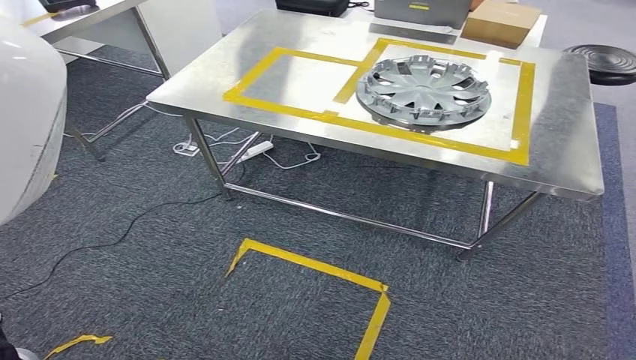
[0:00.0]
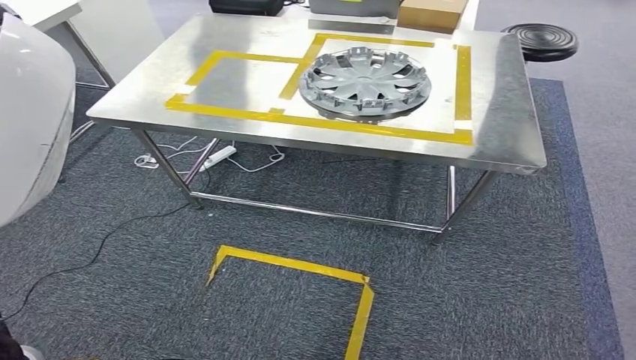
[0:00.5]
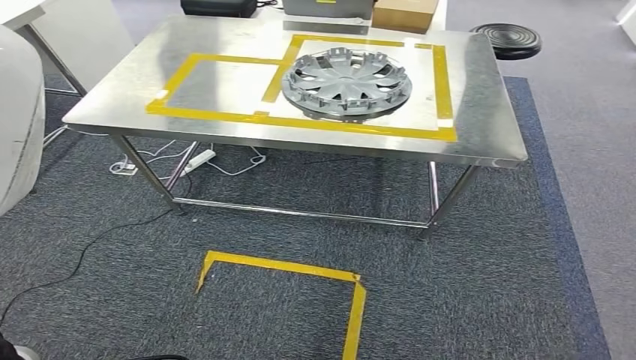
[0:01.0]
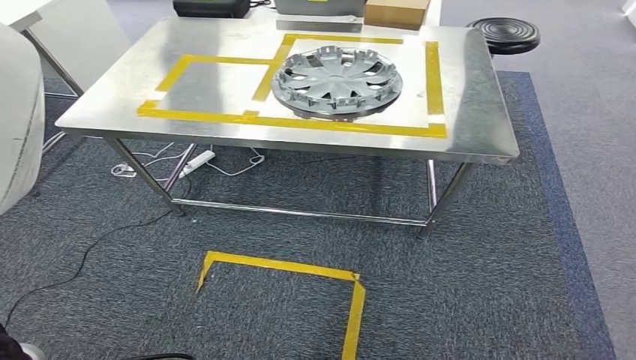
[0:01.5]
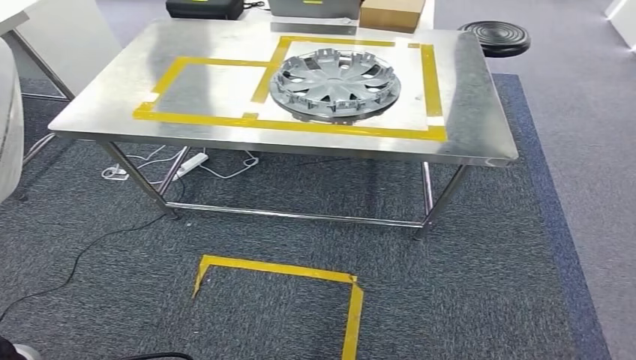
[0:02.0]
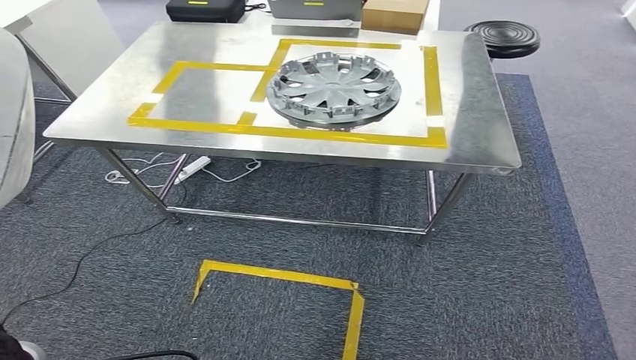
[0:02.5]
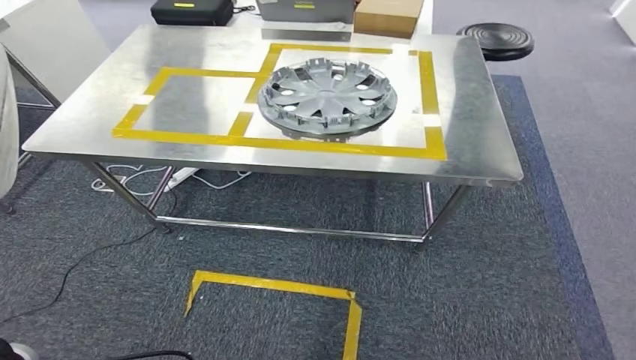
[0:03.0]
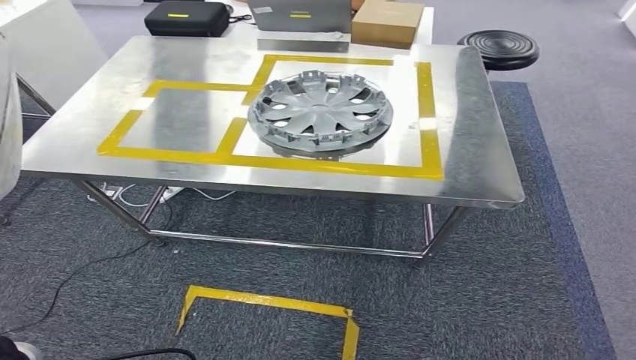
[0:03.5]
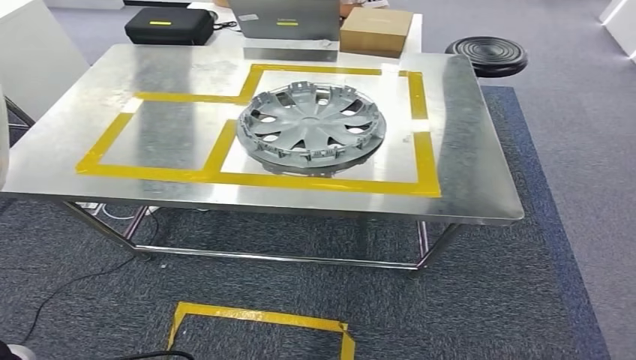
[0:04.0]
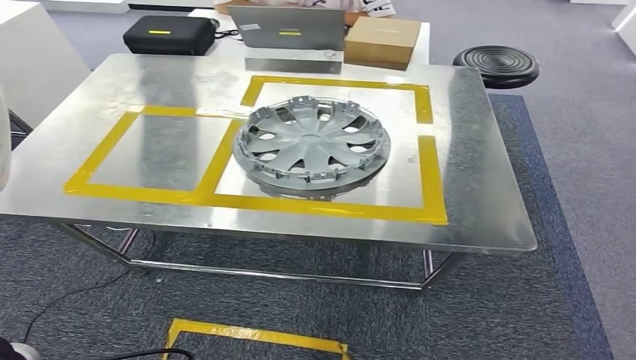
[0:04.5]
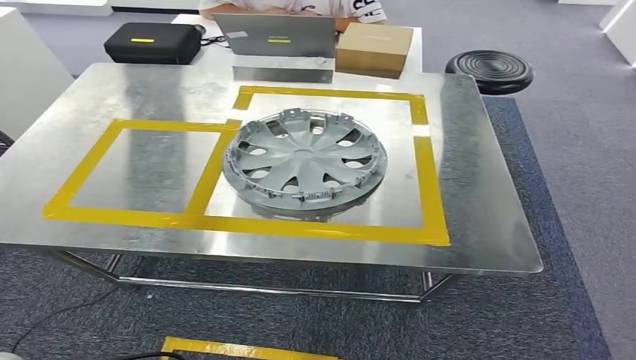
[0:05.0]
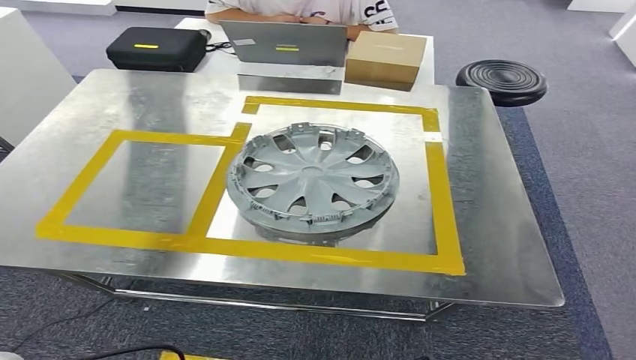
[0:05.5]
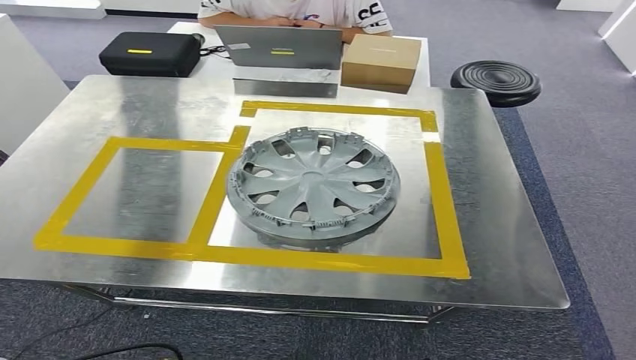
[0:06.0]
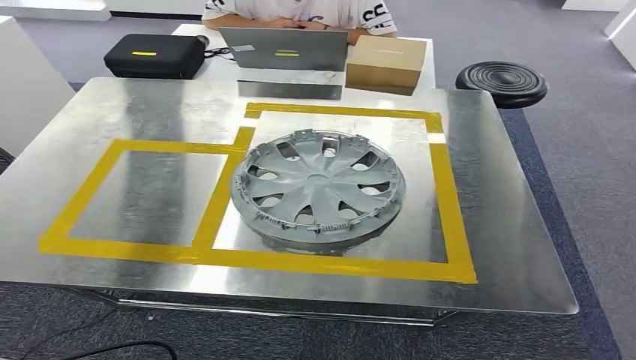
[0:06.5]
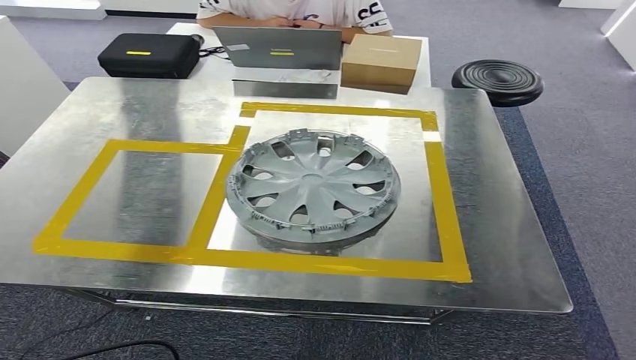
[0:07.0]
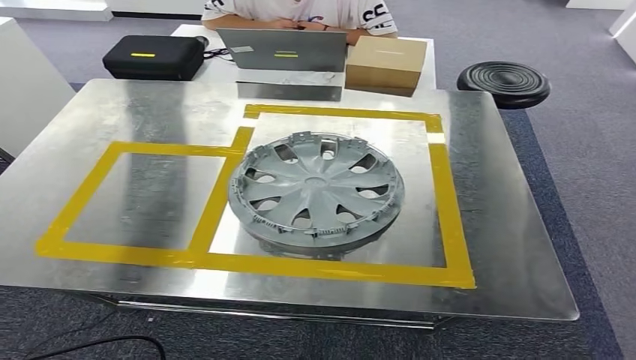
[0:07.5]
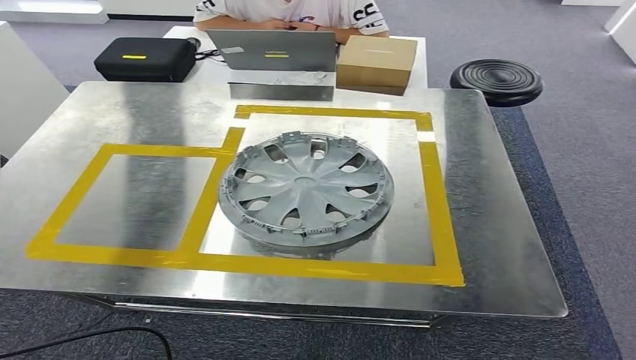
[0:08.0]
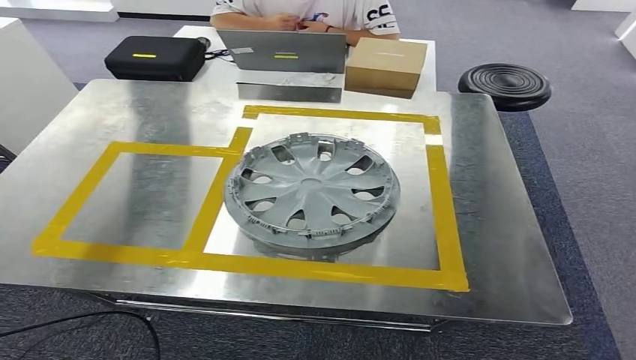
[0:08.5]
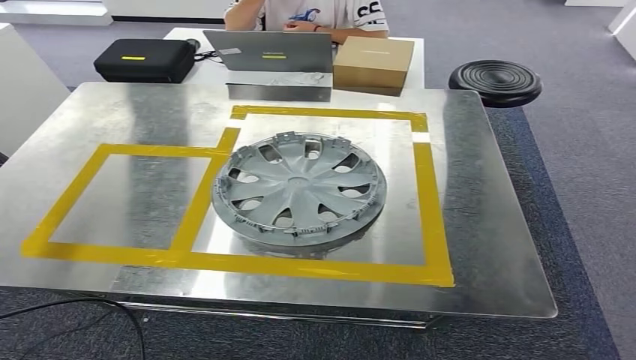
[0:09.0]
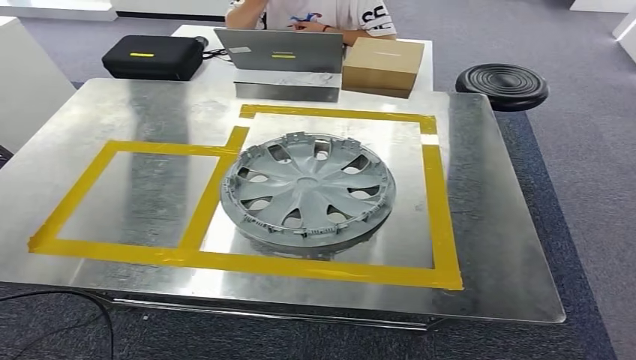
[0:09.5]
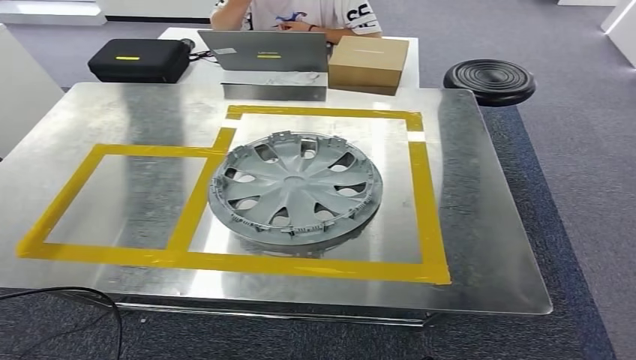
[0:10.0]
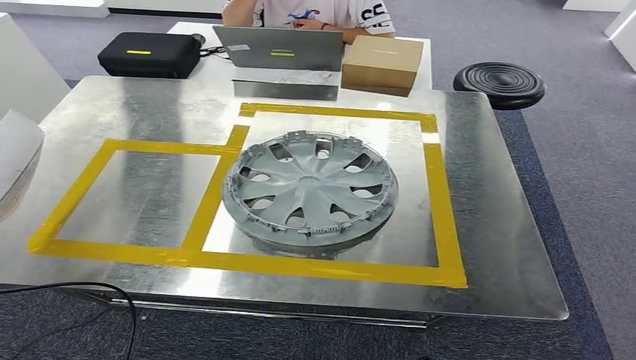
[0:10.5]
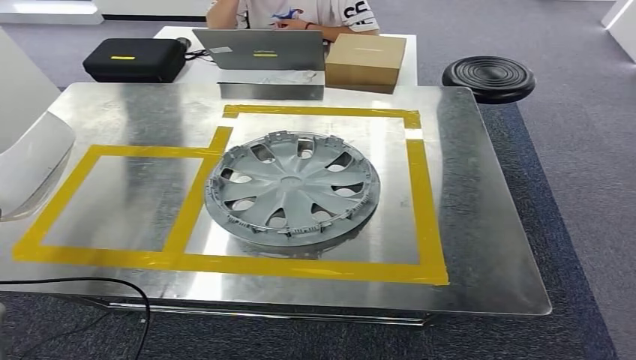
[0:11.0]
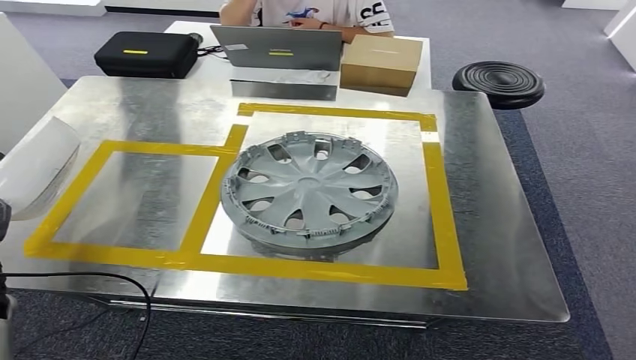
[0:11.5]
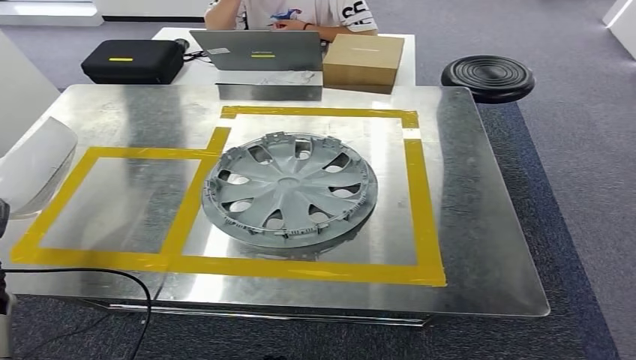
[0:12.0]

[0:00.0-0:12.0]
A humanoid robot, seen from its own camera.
Step, 0:00.0 to 0:06.0: Move the small component to the workbench.
0:08.0 to 0:10.0: The left hand is displaced to the left and downward by roughly 15 cm.
0:10.0 to 0:12.0: The left hand travels forward by roughly 5 cm.

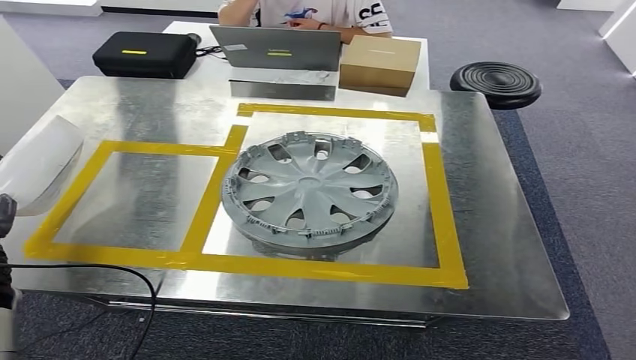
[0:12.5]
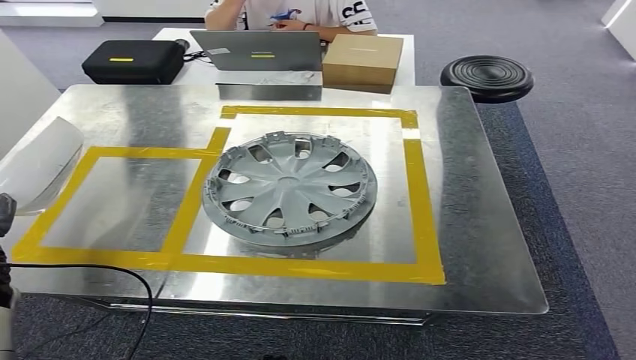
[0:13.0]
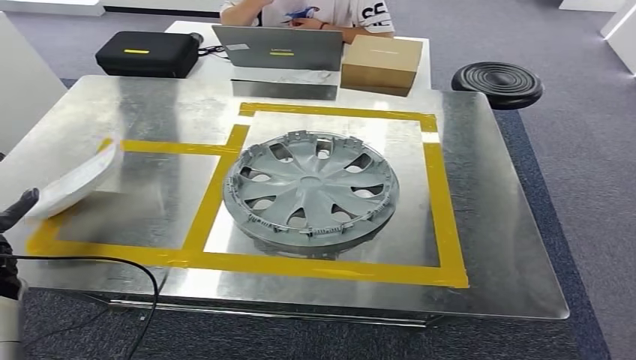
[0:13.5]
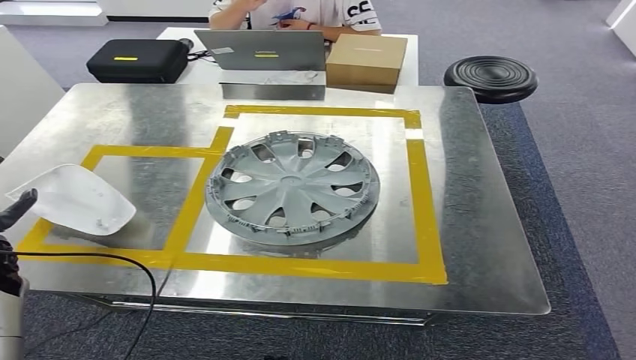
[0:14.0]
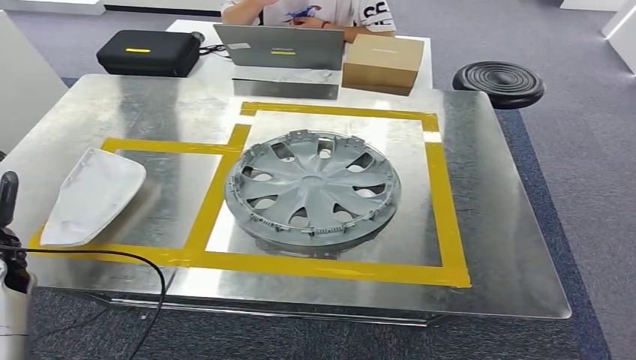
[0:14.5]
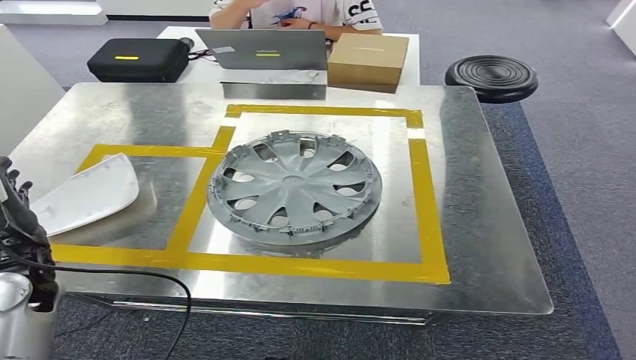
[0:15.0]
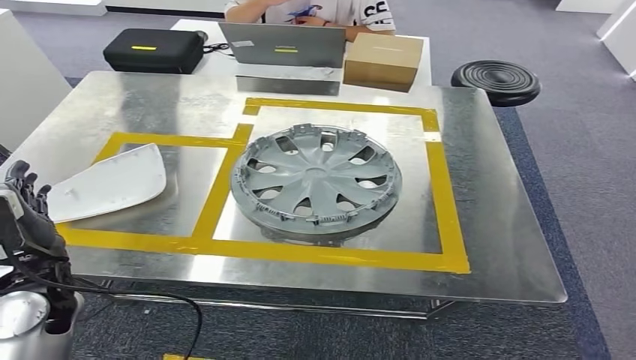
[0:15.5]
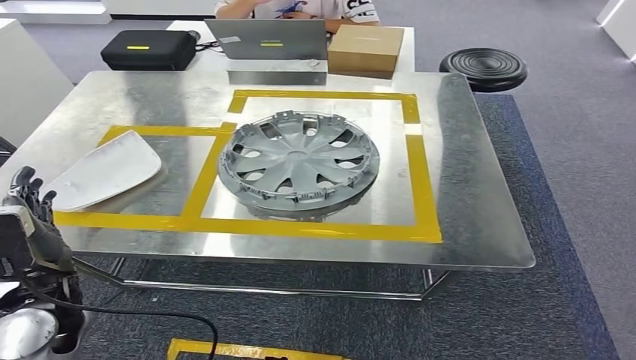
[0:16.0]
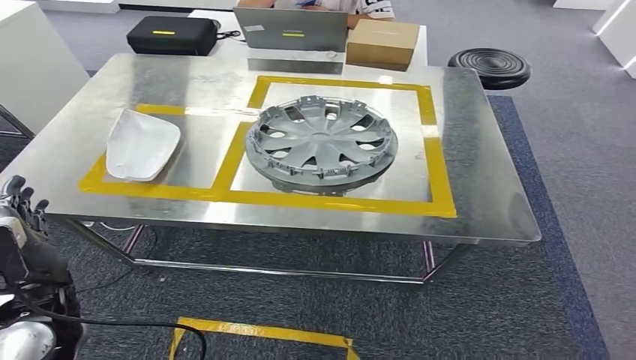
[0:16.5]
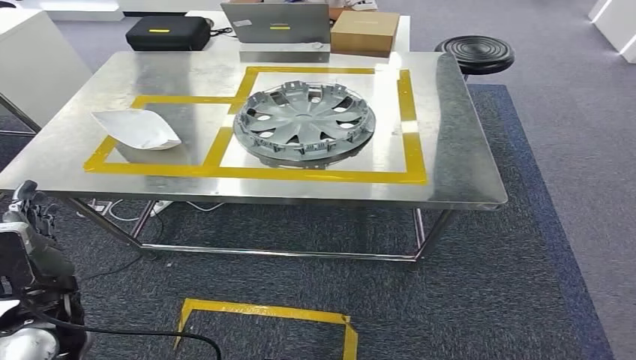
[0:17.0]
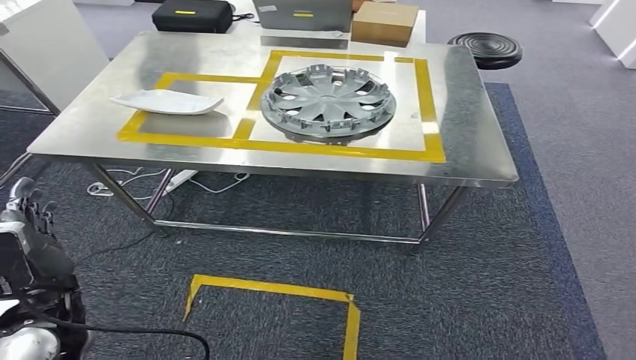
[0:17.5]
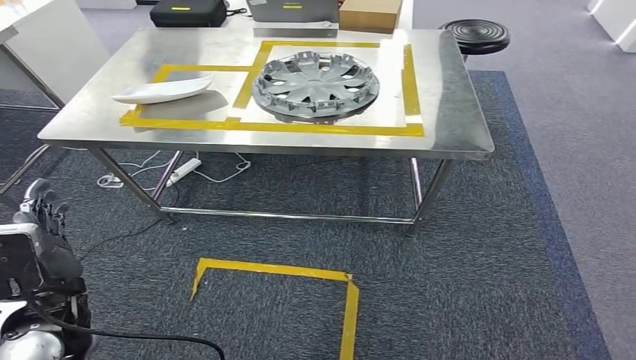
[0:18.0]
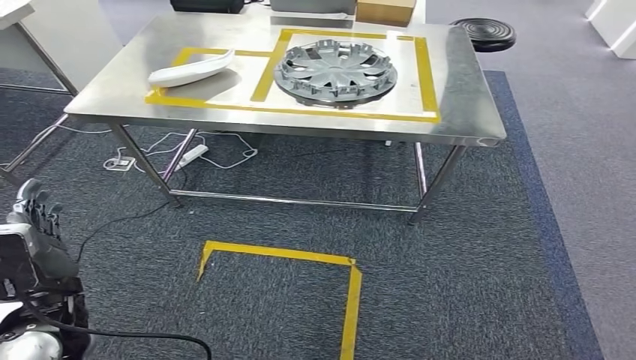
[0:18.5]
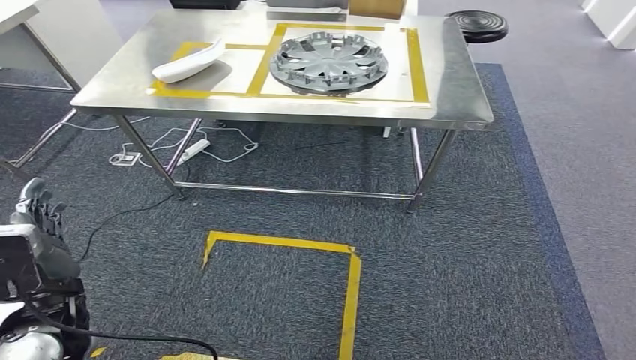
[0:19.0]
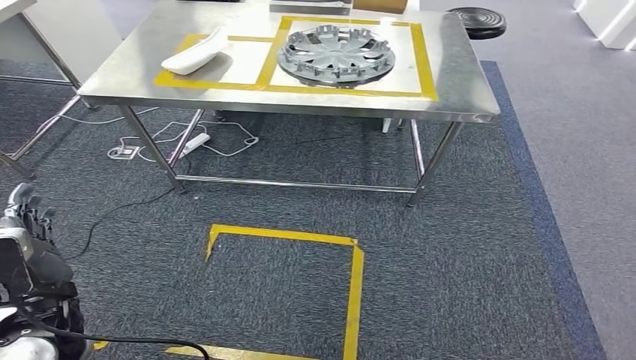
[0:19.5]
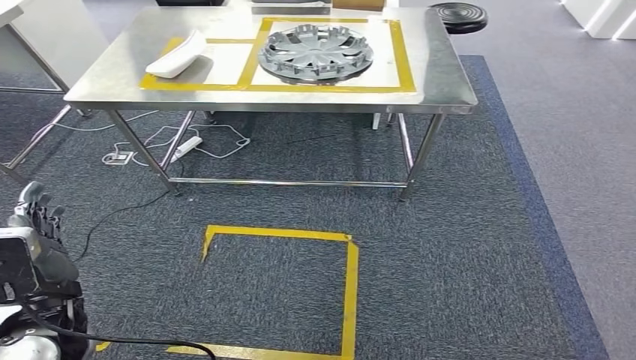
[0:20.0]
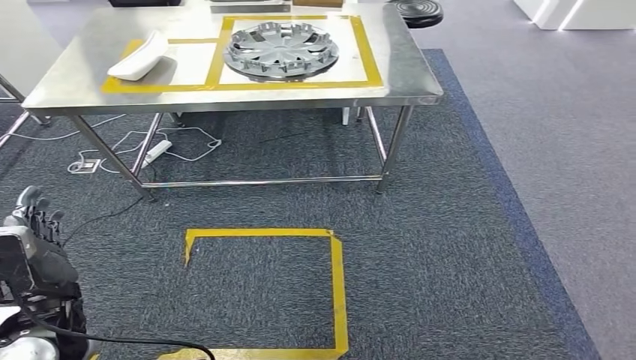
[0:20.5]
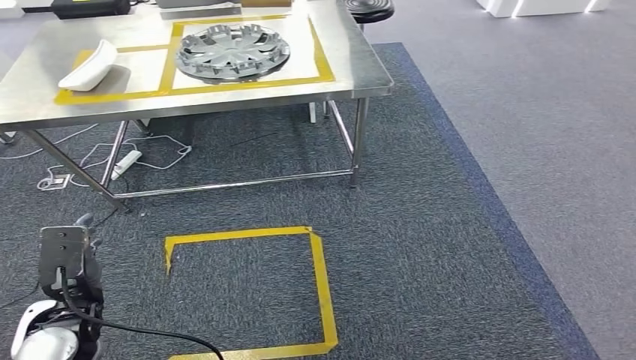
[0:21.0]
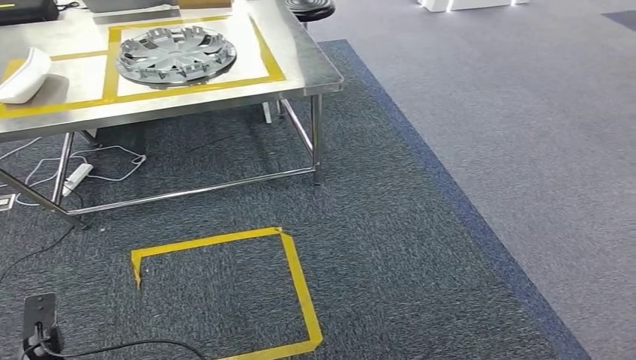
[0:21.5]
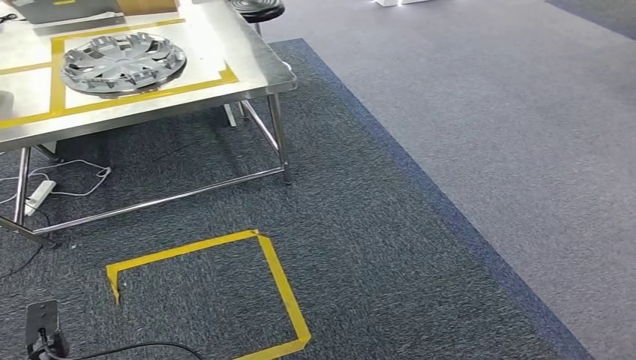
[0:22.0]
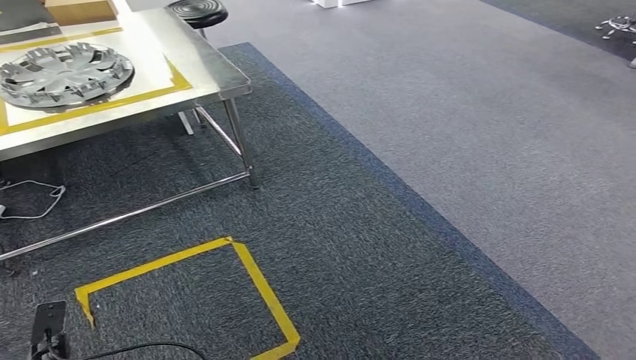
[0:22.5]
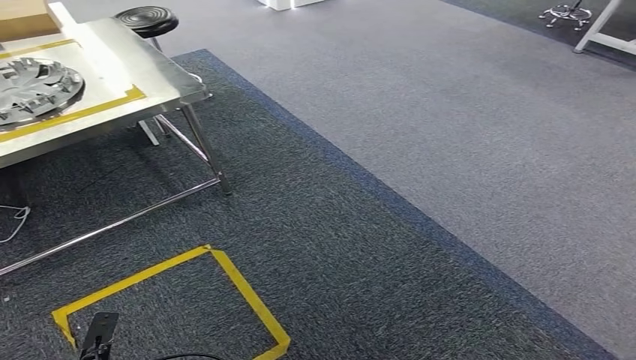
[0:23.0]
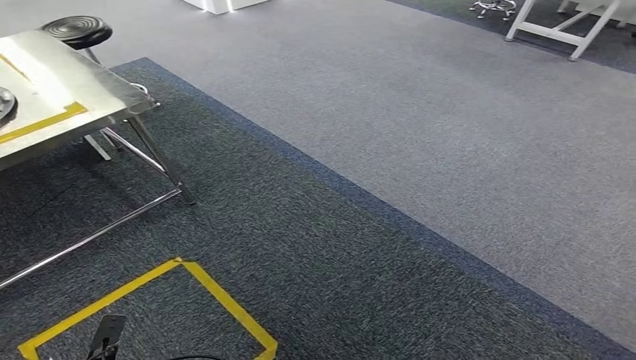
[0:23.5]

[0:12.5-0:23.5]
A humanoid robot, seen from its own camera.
Step, 0:12.5 to 0:15.5: Insert the small component into the corresponding slot on the workbench.
